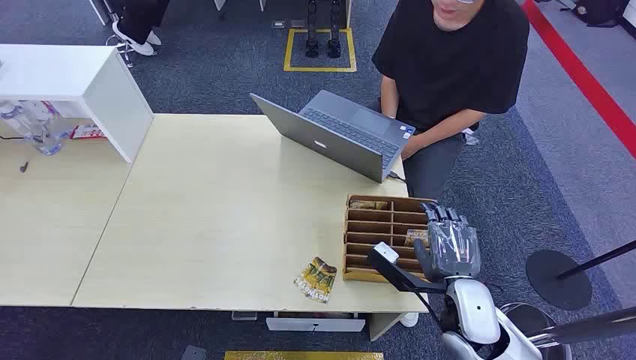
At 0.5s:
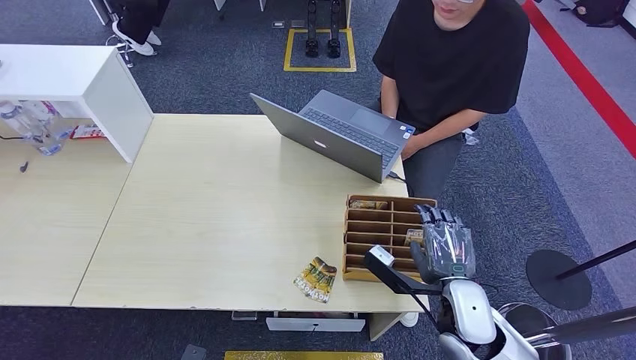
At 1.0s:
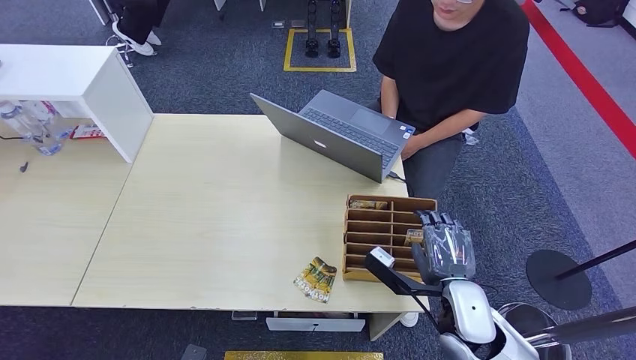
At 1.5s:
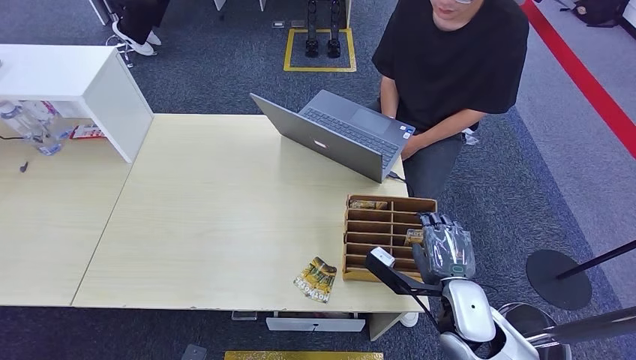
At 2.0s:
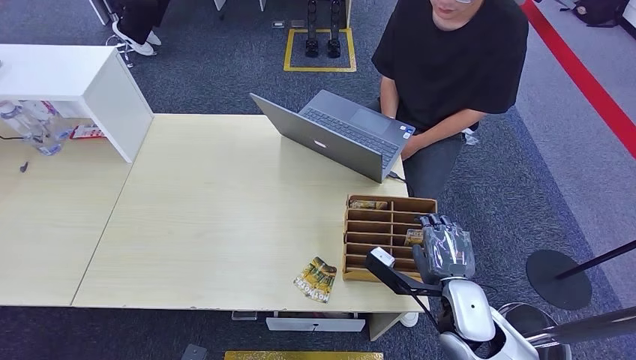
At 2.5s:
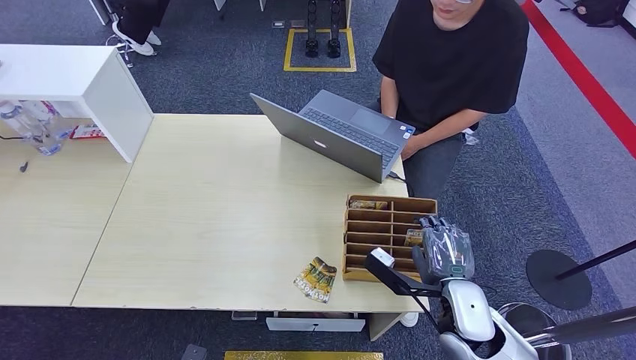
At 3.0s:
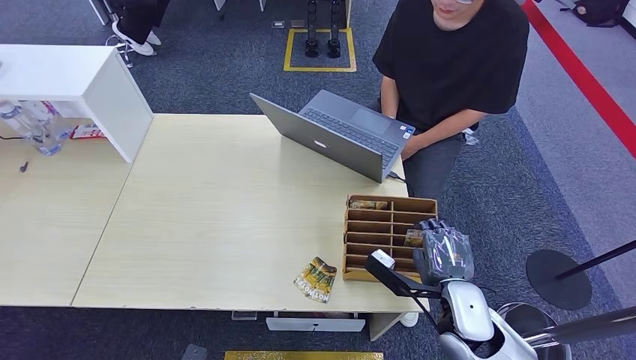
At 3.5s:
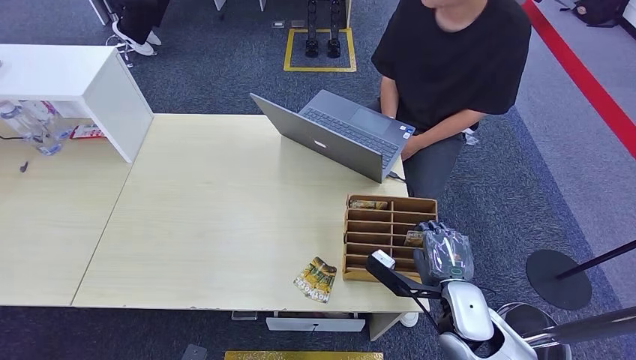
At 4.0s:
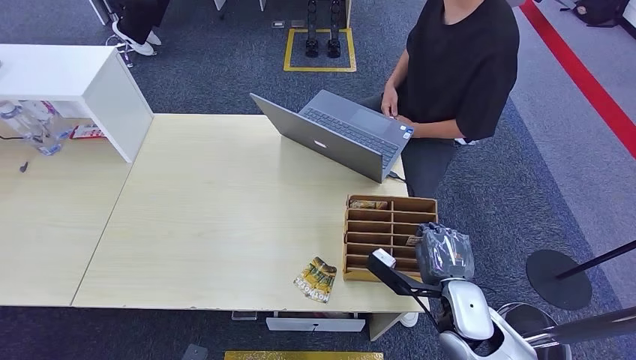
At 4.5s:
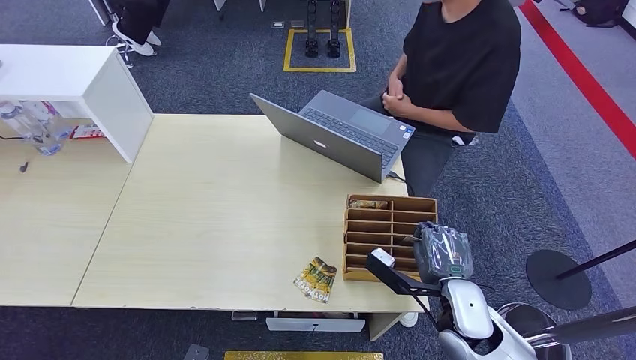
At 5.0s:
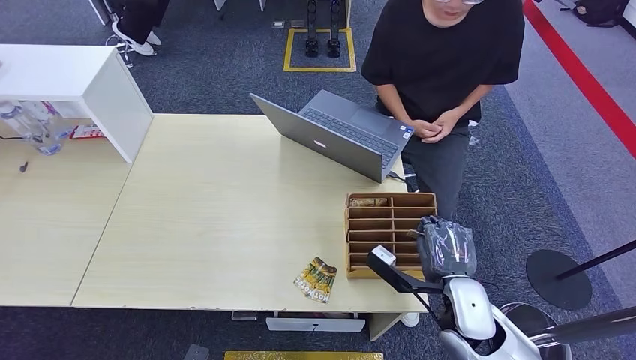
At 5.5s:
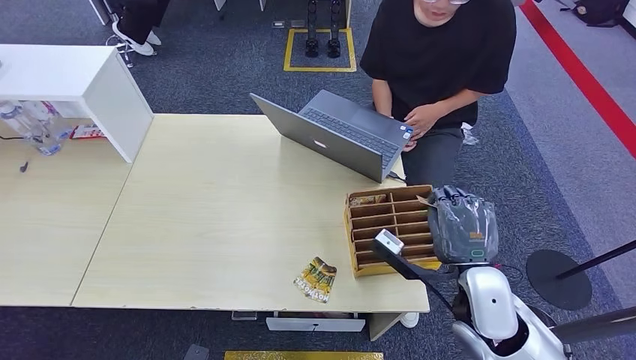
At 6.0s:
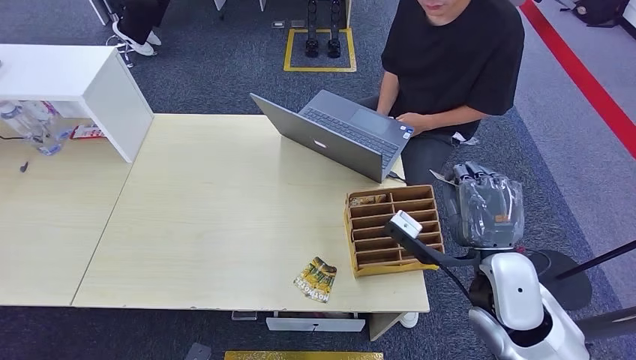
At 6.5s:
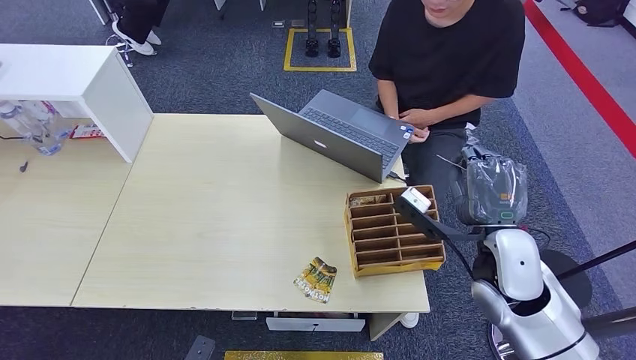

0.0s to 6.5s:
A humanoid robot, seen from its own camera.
Step, 0.0s to 5.5s: Pick up the room card from the card holder.
Step, 6.0s to 6.5s: Hand the room card to the target.
2.0s to 4.5s: Both hands stay put.
4.5s to 6.5s: The right hand travels upward by roughly 10 cm.
